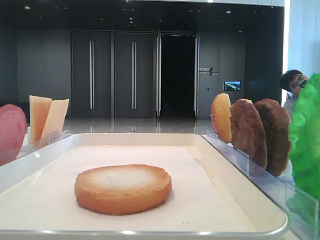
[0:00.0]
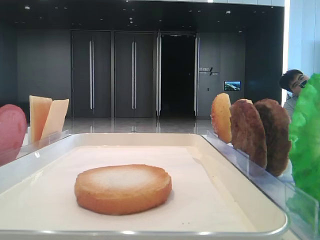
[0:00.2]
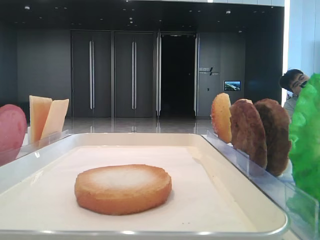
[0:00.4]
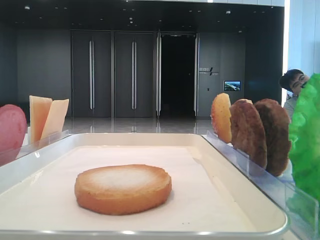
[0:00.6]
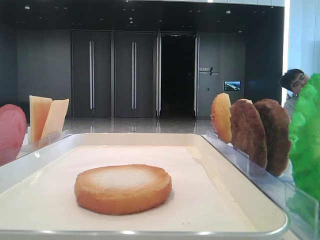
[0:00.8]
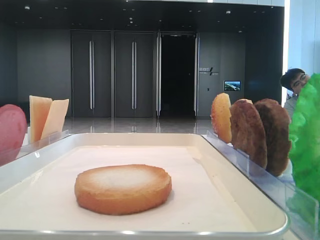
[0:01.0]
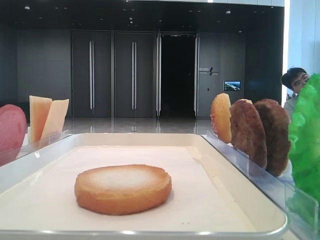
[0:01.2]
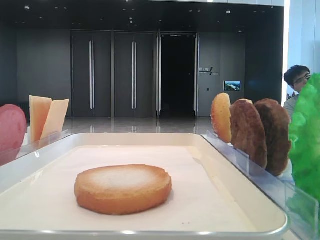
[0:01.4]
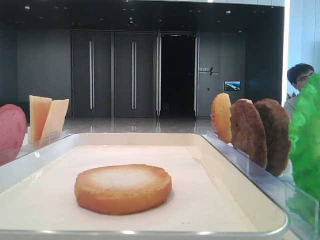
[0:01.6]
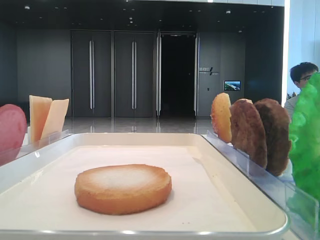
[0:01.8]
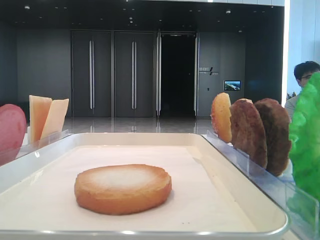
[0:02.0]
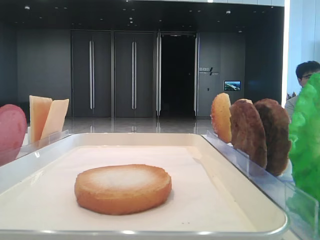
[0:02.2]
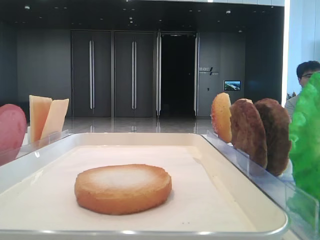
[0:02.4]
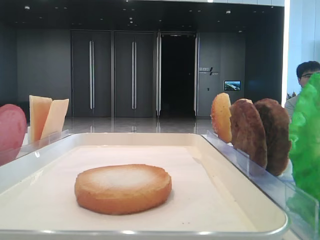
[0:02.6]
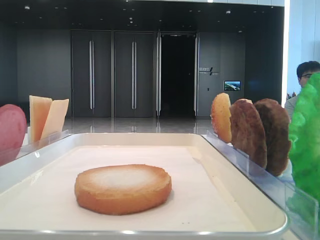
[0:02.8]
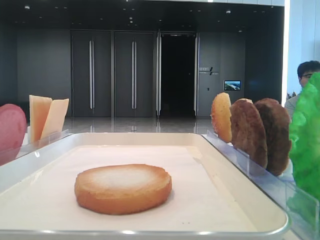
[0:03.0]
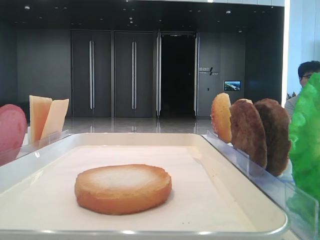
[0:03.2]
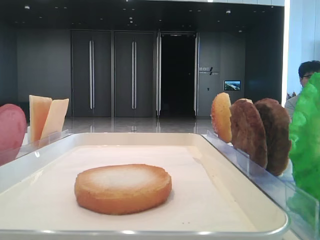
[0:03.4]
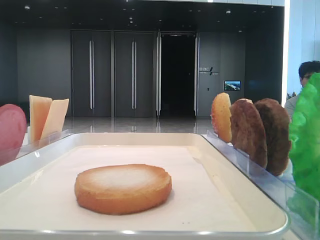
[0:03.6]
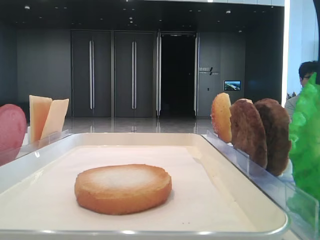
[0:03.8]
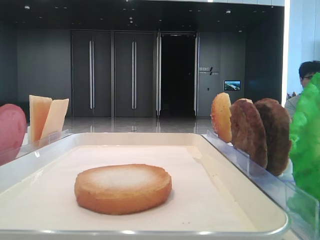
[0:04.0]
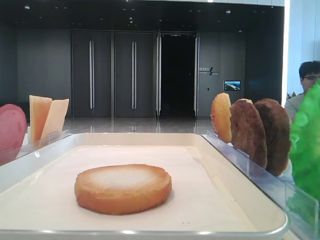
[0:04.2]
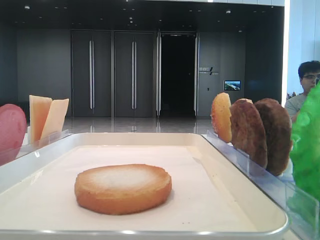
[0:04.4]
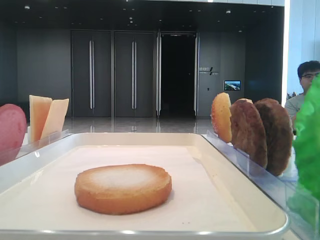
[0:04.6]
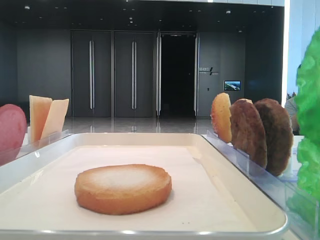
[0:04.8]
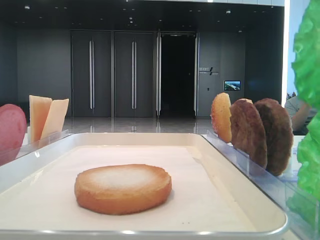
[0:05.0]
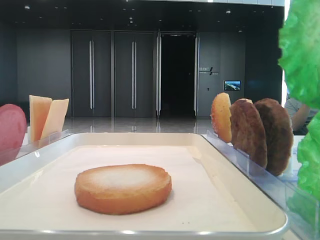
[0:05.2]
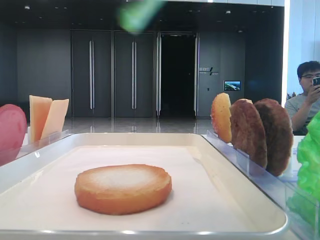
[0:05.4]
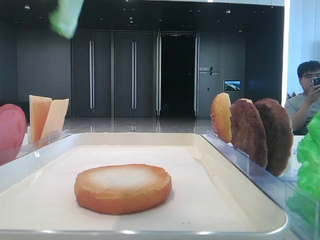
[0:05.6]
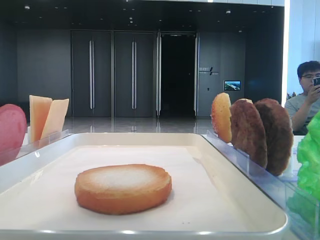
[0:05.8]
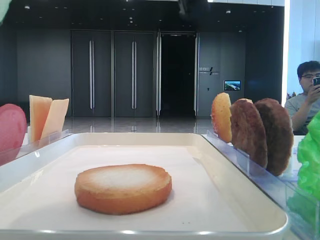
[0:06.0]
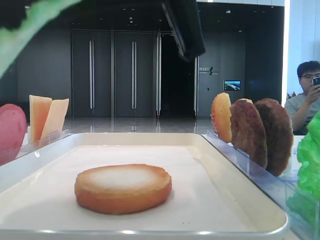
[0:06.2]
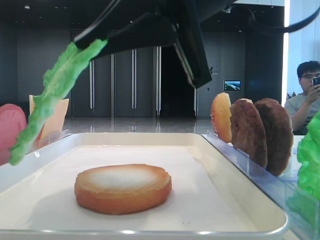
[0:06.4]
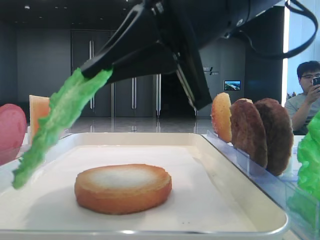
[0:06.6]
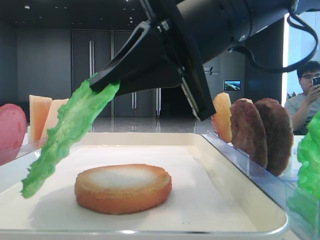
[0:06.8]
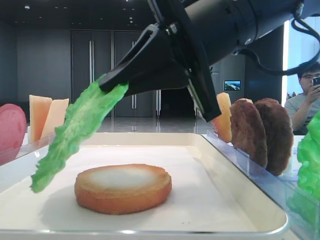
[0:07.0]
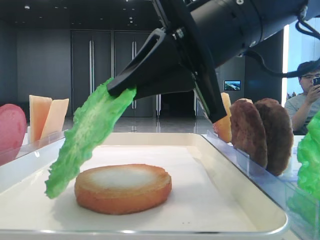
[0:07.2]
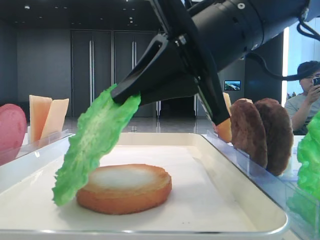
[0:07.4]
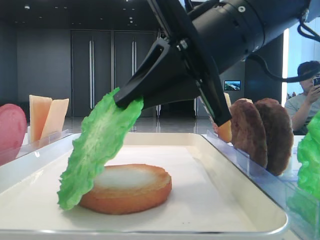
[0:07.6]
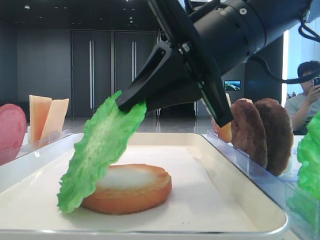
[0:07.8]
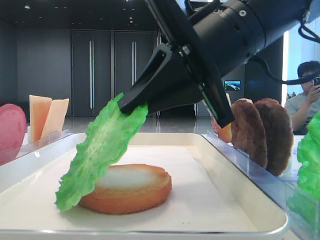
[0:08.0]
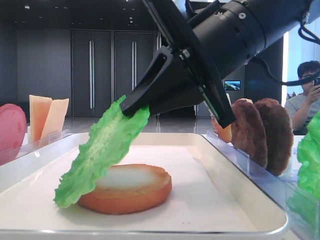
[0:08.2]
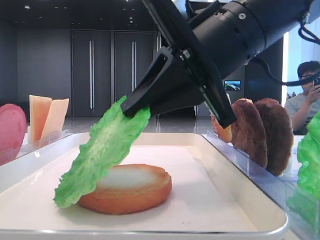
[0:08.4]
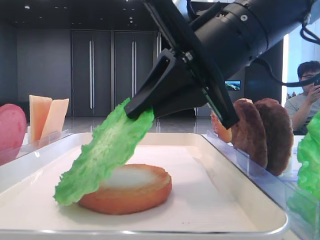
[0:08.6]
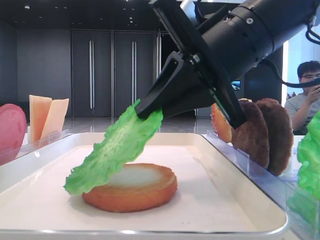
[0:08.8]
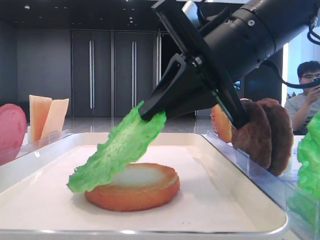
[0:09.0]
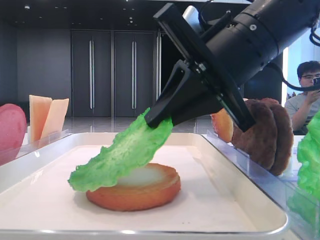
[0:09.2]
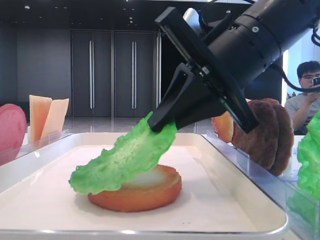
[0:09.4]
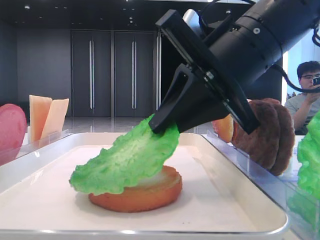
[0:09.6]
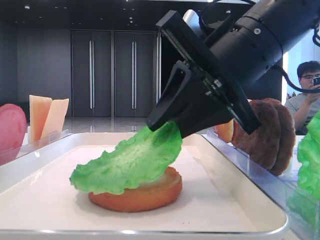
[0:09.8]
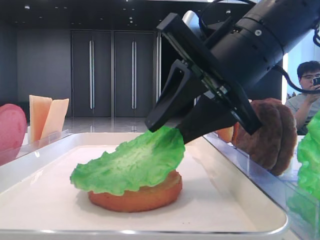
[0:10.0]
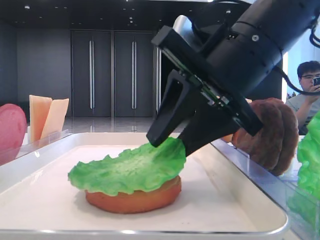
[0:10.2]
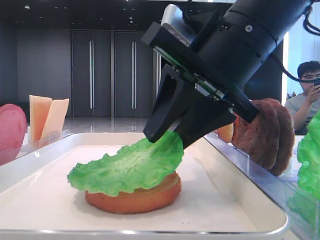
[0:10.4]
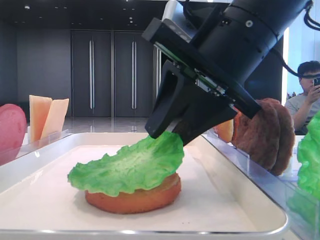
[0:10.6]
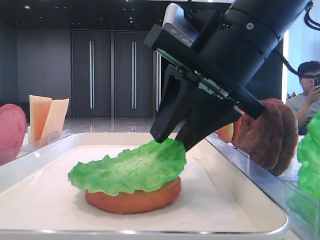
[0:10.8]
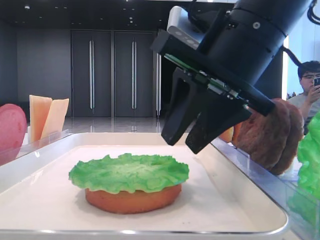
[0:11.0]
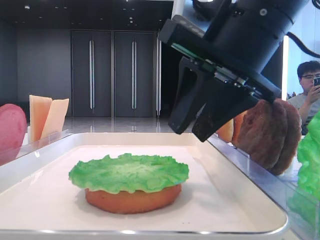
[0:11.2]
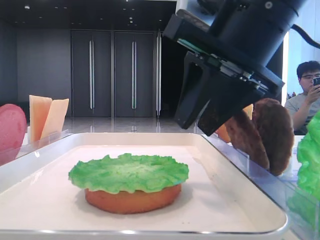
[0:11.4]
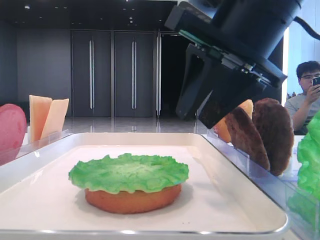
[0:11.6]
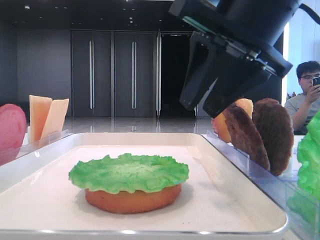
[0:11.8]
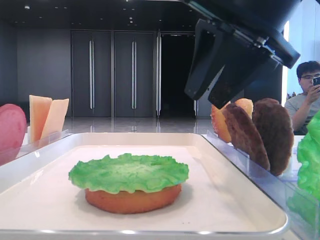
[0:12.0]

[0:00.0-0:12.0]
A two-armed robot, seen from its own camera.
Step, 0:04.4 to 0:10.6: Place the lettuce leaf on the bottom bread with the right hand.
0:01.6 to 0:03.0: The right gripper is displaced to the left and forward by some 10 cm.
0:03.0 to 0:04.4: The right gripper changes place by approximately 5 cm, and closes.
0:04.4 to 0:06.0: The right gripper shifts roughly 10 cm to the left.
0:06.0 to 0:07.6: The right gripper goes roughly 10 cm downward and forward.
0:09.0 to 0:10.4: The right gripper opens up.
0:10.4 to 0:12.0: The right gripper moves upward, approximately 5 cm.

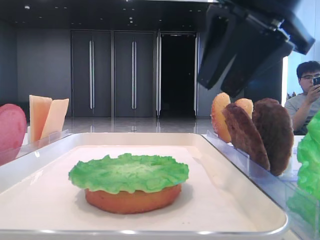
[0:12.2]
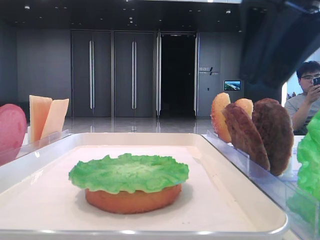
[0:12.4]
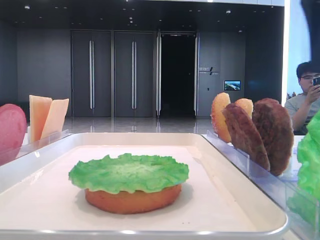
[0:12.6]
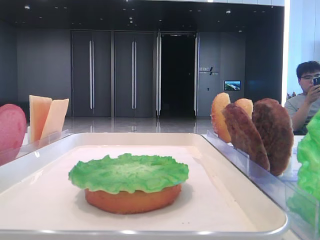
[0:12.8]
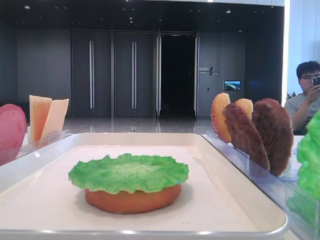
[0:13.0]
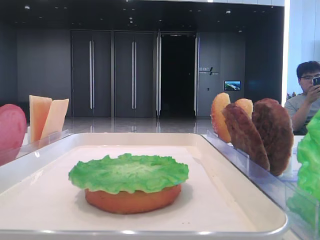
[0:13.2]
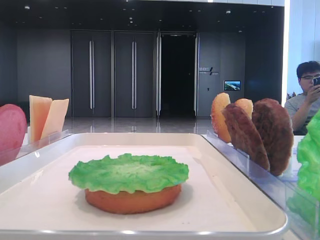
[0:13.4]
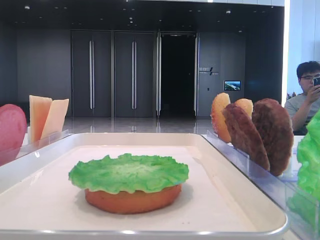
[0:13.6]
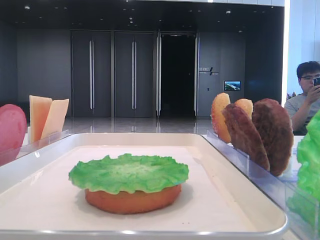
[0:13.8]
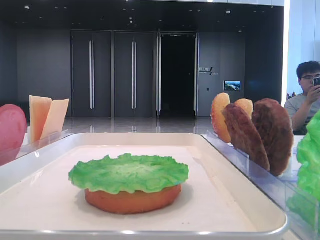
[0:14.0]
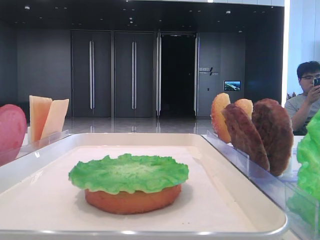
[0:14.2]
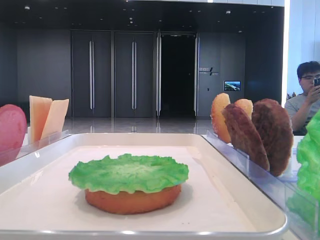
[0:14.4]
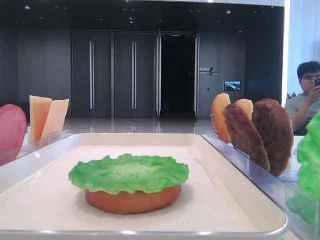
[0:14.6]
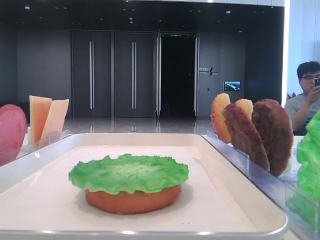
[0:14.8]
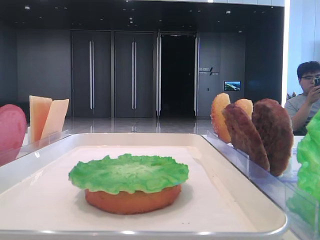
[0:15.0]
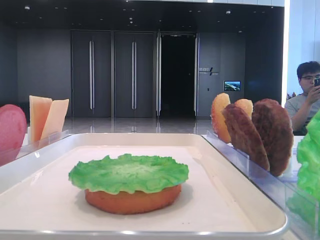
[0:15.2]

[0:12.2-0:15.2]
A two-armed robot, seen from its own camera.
0:12.2 to 0:13.8: The right gripper moves to the right and backward, roughly 25 cm.

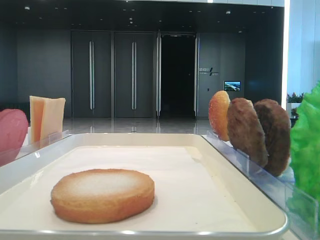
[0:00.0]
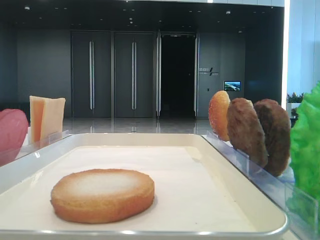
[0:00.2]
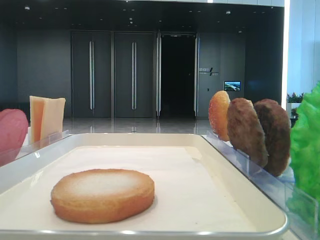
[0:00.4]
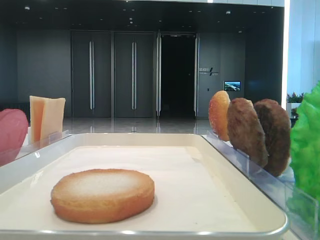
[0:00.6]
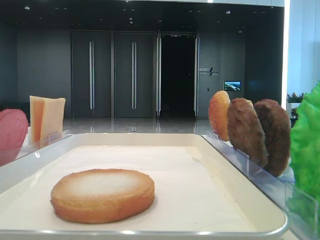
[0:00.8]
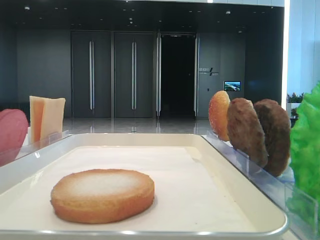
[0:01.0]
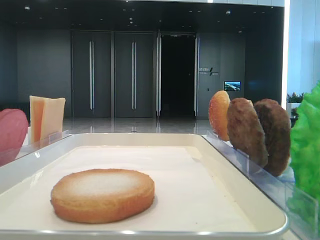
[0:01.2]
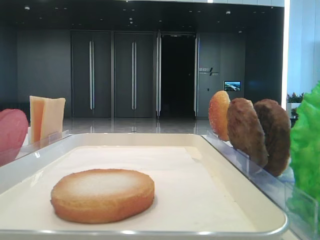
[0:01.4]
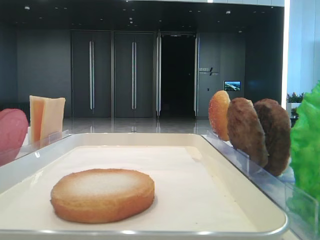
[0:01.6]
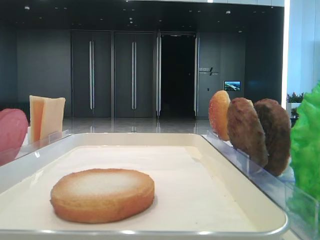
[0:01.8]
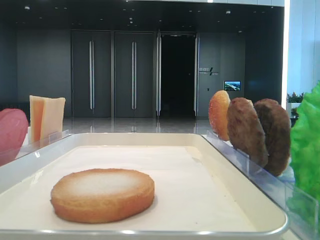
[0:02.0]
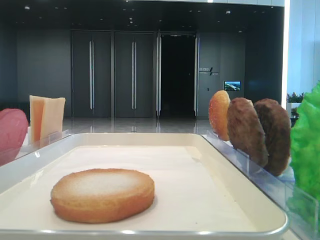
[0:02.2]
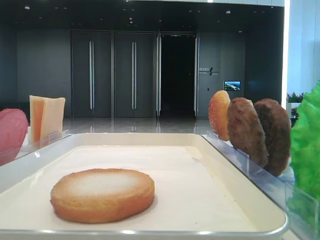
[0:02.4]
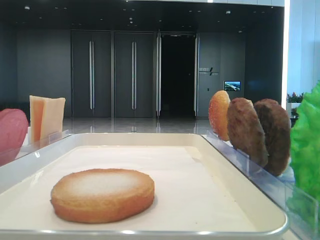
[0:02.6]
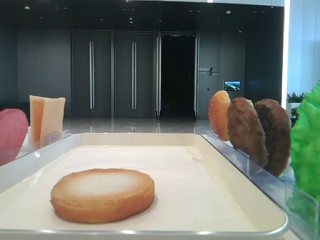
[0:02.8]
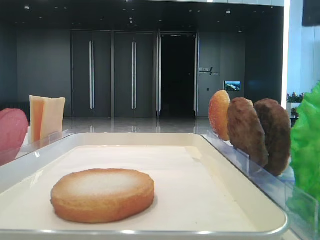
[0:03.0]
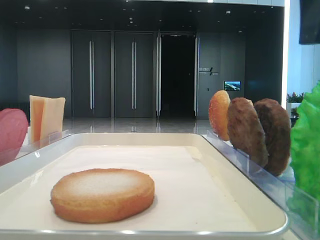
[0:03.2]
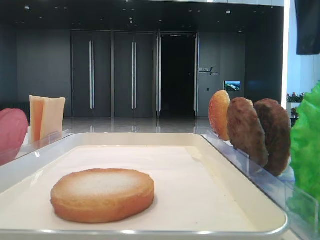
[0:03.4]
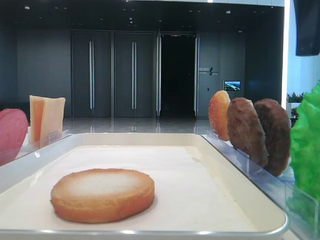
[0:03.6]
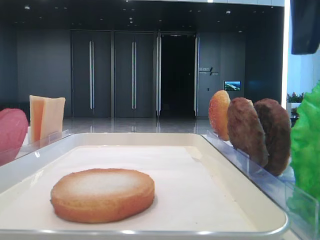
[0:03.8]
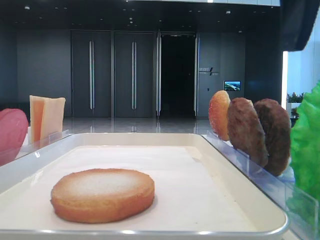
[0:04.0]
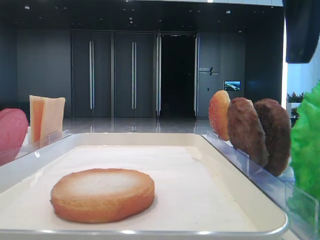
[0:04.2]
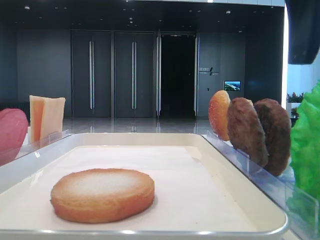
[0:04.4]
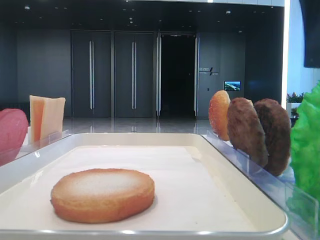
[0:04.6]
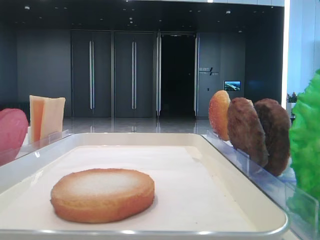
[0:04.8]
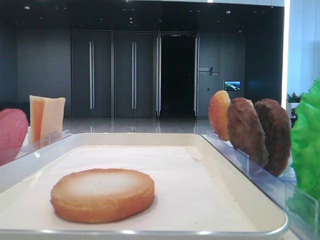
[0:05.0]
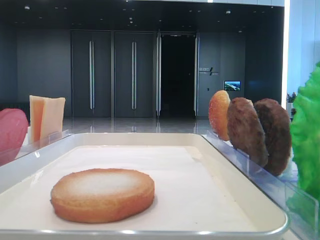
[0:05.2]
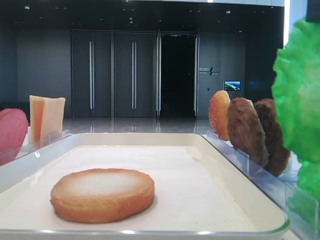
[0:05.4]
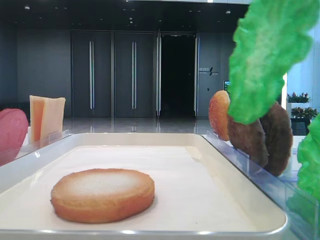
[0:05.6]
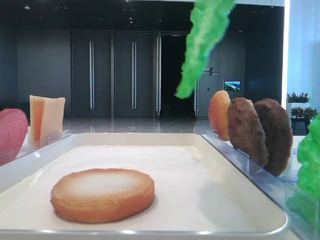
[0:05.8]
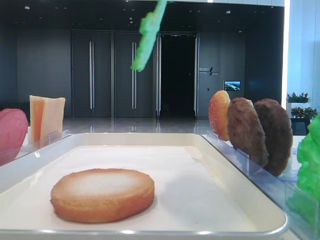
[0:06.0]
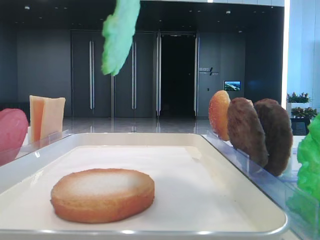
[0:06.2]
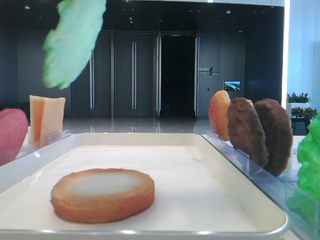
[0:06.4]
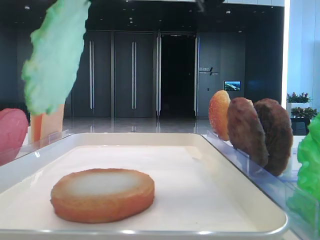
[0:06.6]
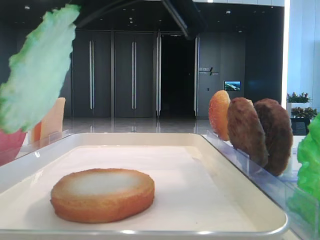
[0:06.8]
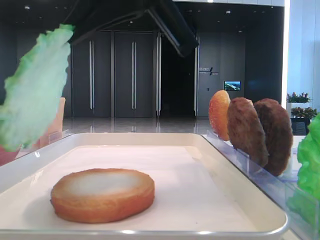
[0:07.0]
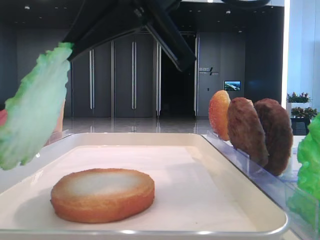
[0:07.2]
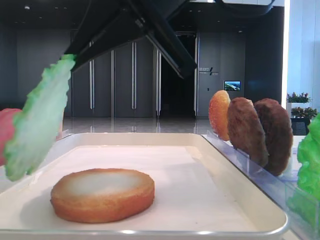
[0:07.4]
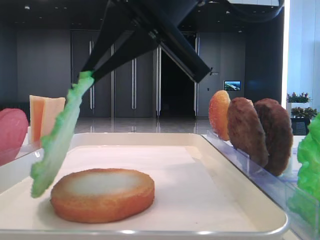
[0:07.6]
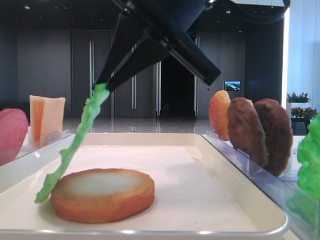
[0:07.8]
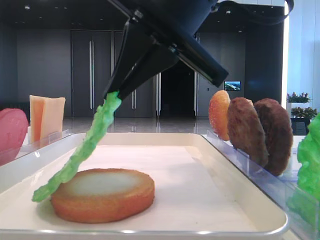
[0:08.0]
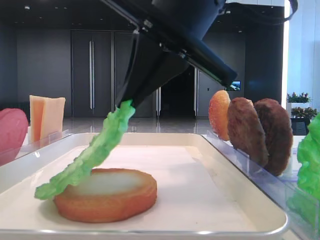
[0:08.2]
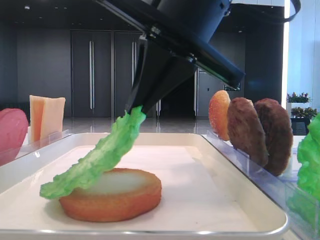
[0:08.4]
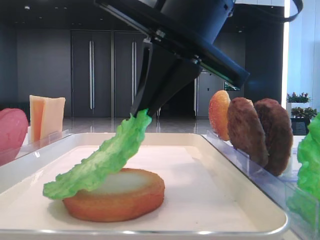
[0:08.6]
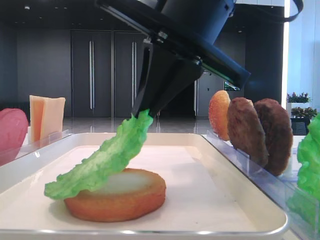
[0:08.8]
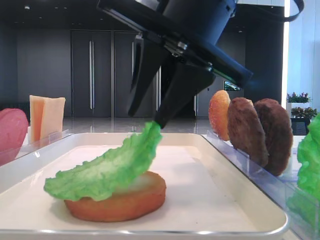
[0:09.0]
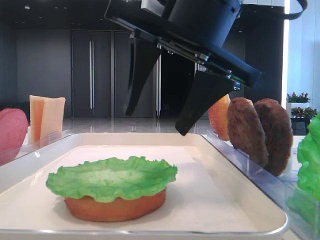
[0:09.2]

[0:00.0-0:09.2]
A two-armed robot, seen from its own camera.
Step, 0:00.0 to 0:05.0: Grab the lettuce leaf with the right hand.
Step, 0:05.2 to 0:09.0: Place the lettuce leaf on the bottom bread with the right hand.
0:03.0 to 0:04.6: The grippers stay close to where they were, moving slightly.
0:04.6 to 0:06.2: The right gripper moves to the left and upward, about 10 cm, and closes.
0:06.2 to 0:07.6: The right gripper travels downward and to the left by approximately 10 cm.
0:07.6 to 0:09.2: The right gripper opens.
